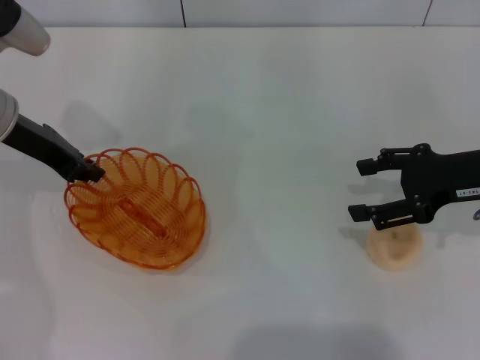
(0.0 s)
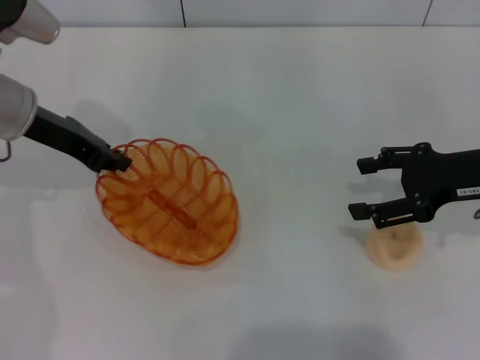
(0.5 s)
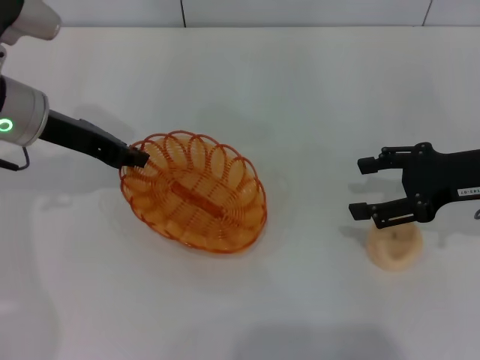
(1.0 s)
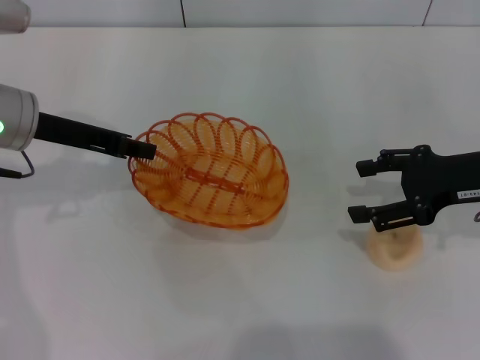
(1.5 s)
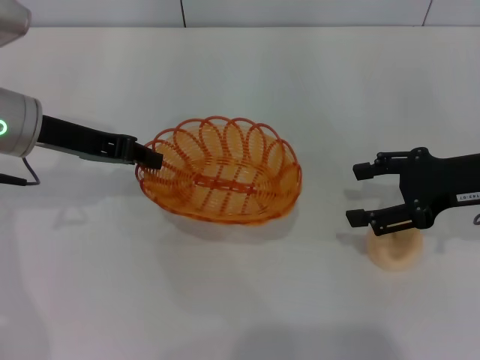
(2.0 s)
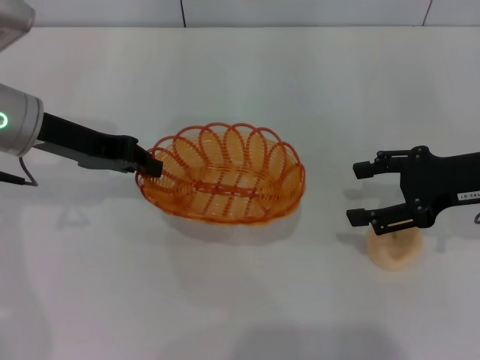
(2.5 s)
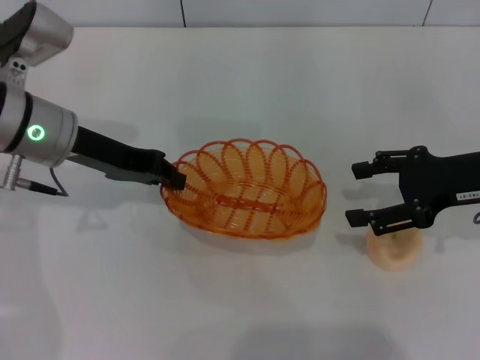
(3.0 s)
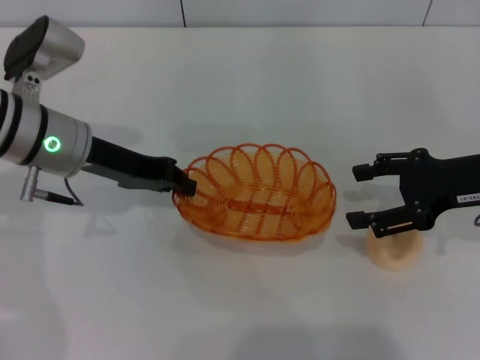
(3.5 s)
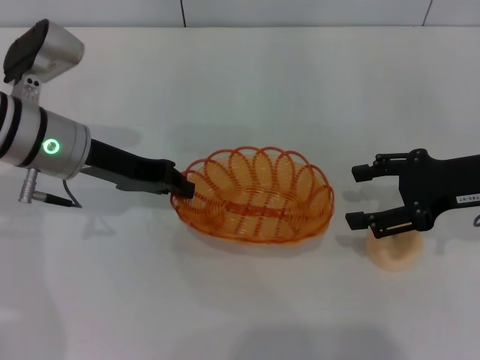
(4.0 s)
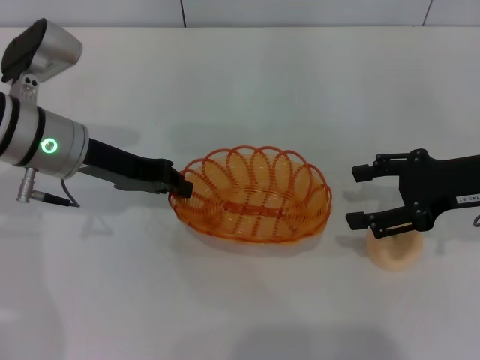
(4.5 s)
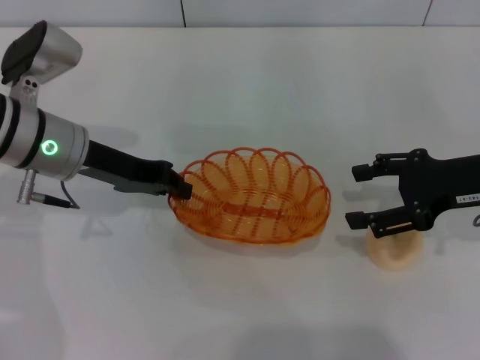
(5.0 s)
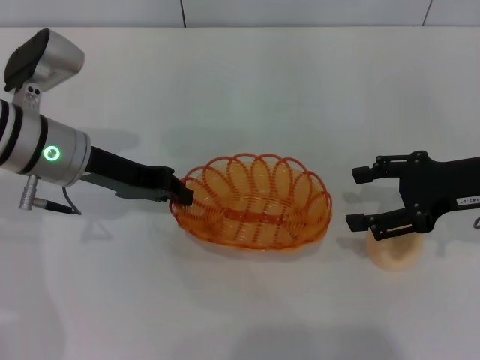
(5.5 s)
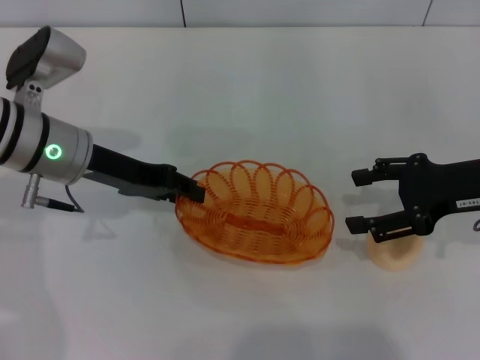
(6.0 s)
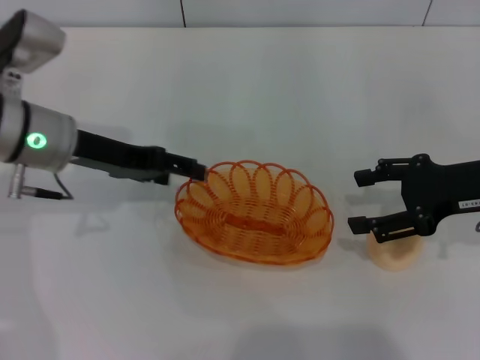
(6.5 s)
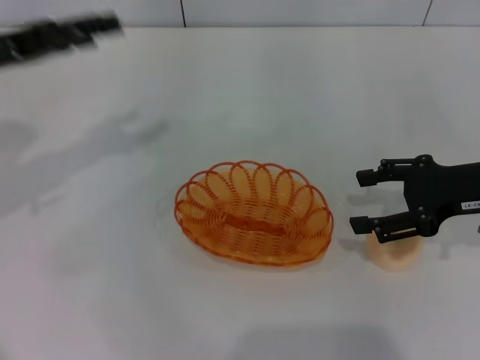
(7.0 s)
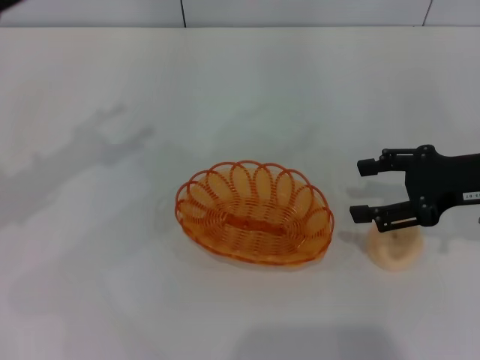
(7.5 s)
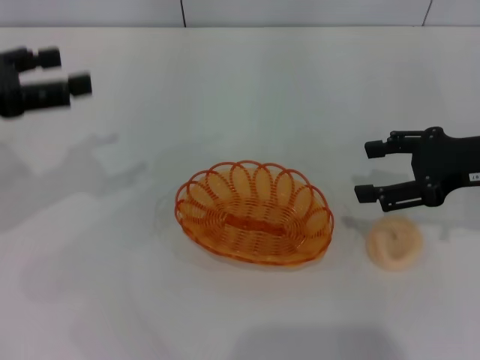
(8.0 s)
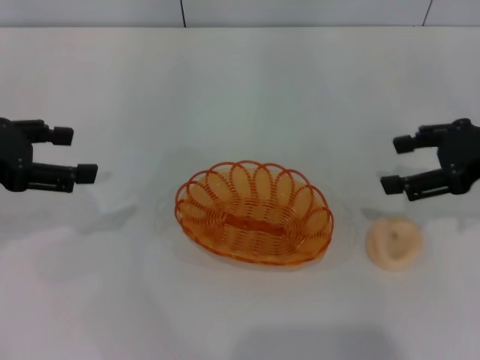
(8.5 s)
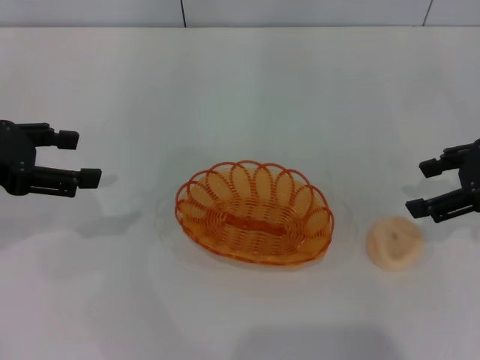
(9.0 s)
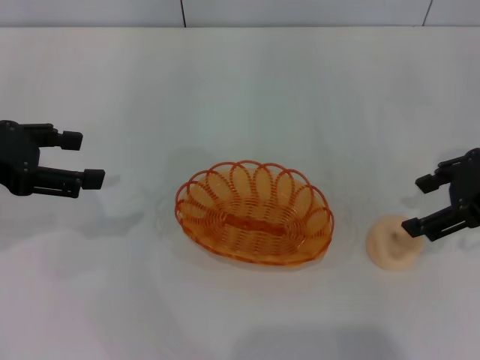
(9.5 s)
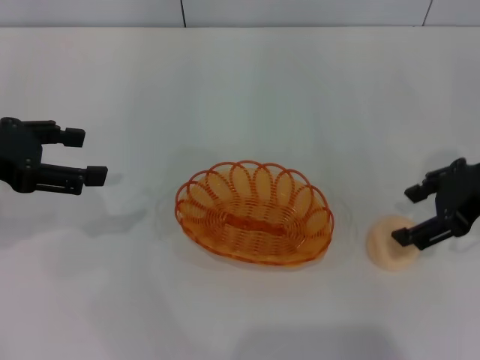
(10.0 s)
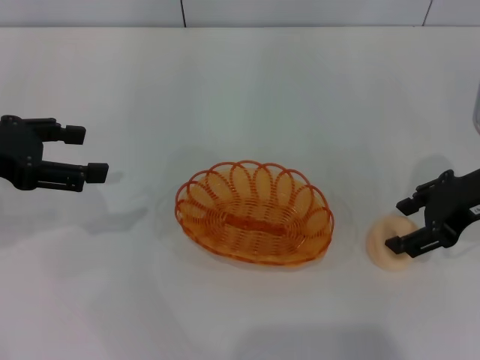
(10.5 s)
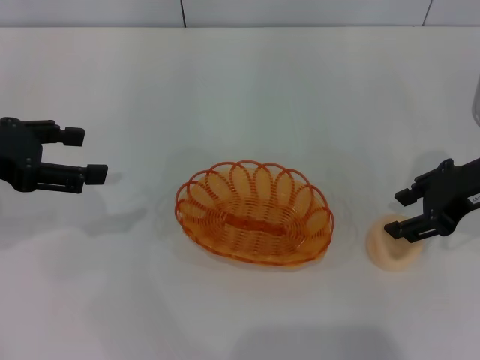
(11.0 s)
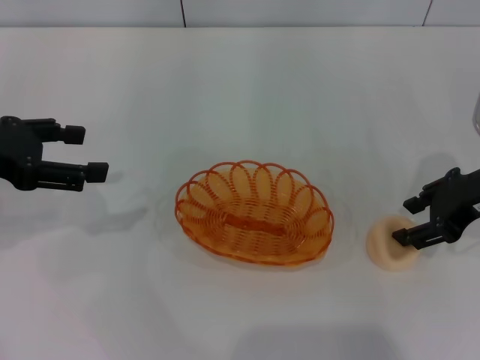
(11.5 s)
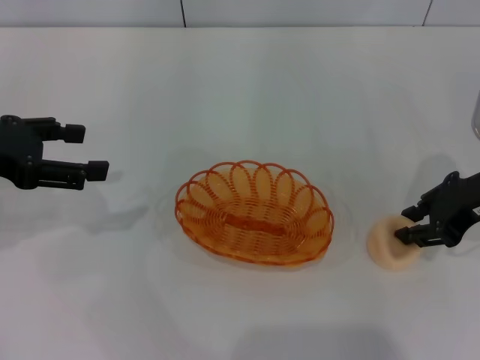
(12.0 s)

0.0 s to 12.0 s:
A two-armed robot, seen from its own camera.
Step, 0.0 to 2.5 s: Pick up the basket with the left gripper.
Step, 3.0 to 7.5 s: Place the basket in the center of view with the left gripper.
2.0 to 4.0 s: There are only small adjustments of the grippers.
4.0 to 6.0 s: Both grippers stay about where they are.
6.0 to 8.0 s: The left gripper heads to the left, upward and backward, covering approximately 15 cm, and opens its fingers.
10.0 to 12.0 s: The right gripper closes.

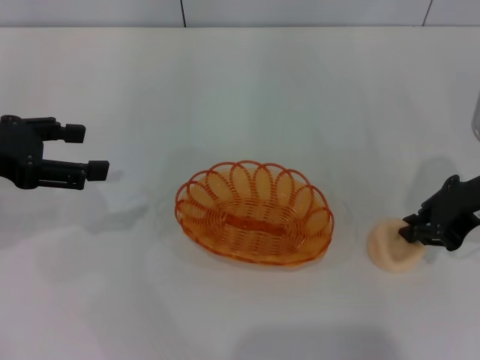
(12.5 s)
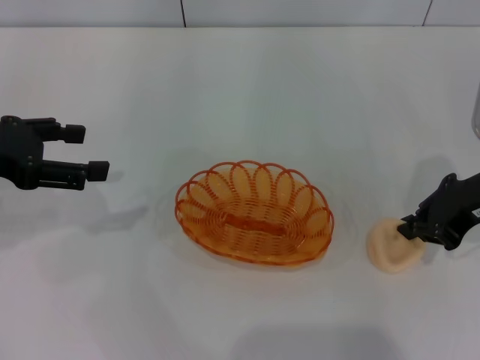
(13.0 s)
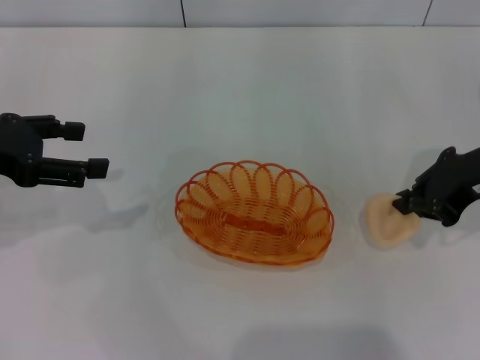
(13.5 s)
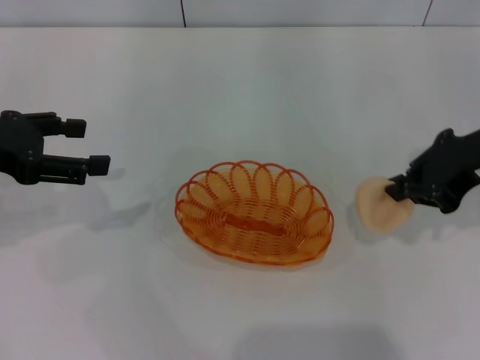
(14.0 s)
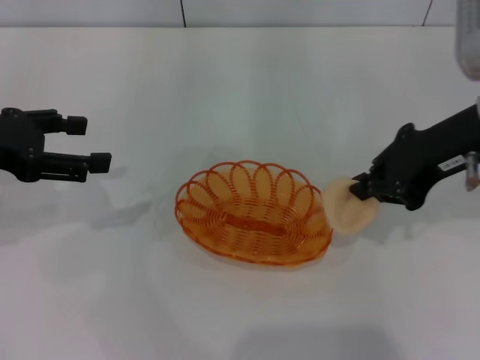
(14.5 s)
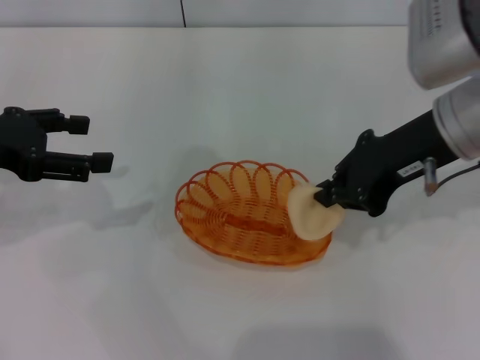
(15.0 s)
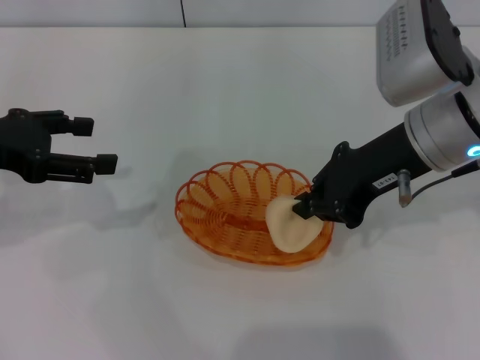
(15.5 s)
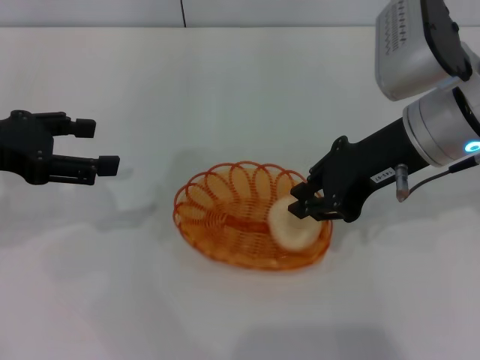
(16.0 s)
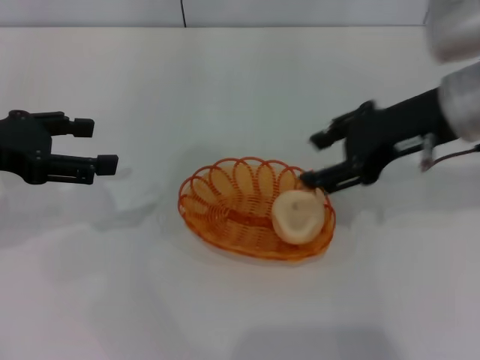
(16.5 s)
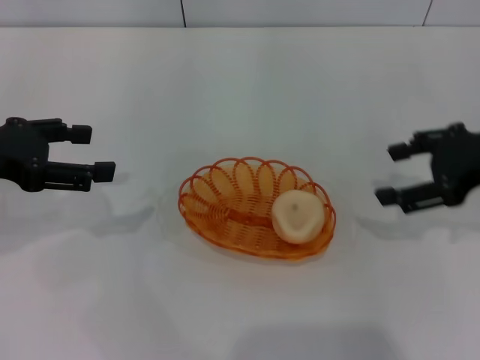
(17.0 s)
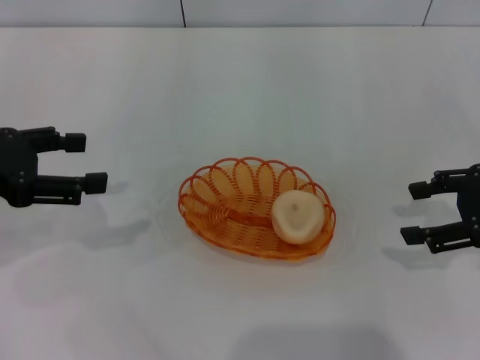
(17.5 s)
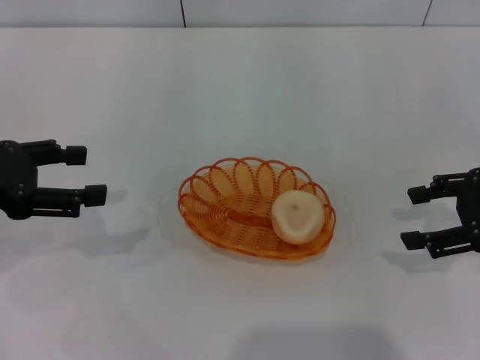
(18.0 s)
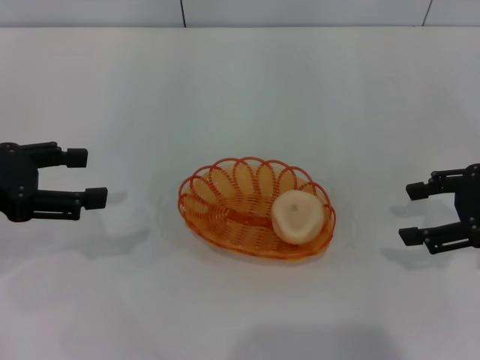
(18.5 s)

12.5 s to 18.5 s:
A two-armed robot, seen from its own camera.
Step, 12.5 to 14.5 s: Pick up the egg yolk pastry with the right gripper.
Step, 15.0 to 17.0 s: Place the egg yolk pastry into the basket with the right gripper.
12.5 to 14.5 s: The right gripper is displaced upward by some 5 cm.
14.5 to 16.5 s: The right gripper opens.
16.5 to 18.5 s: The right gripper shifts approximately 15 cm to the right and downward.
